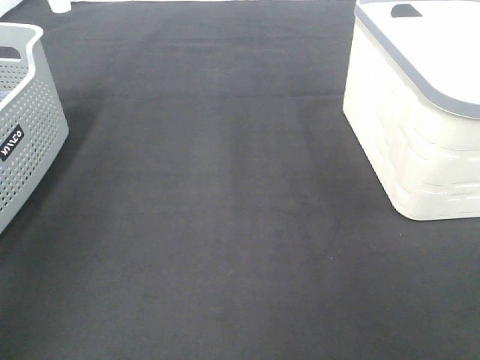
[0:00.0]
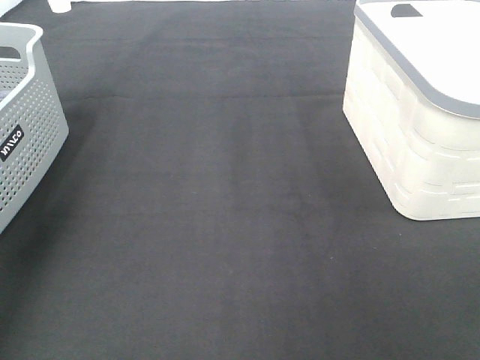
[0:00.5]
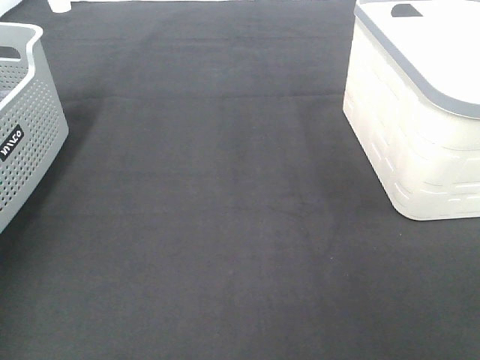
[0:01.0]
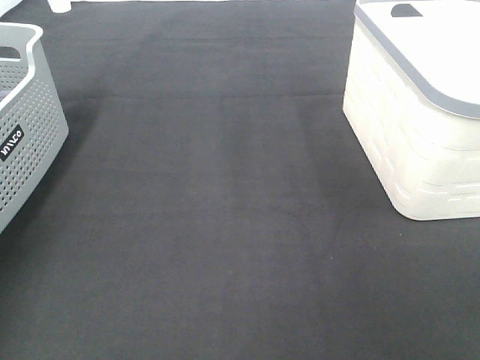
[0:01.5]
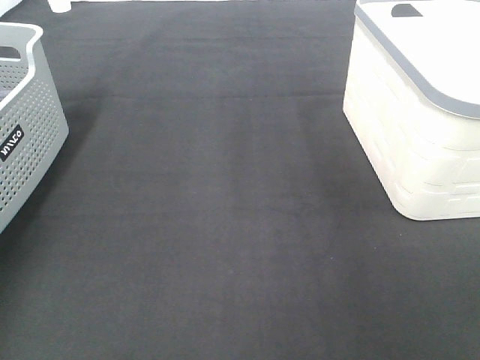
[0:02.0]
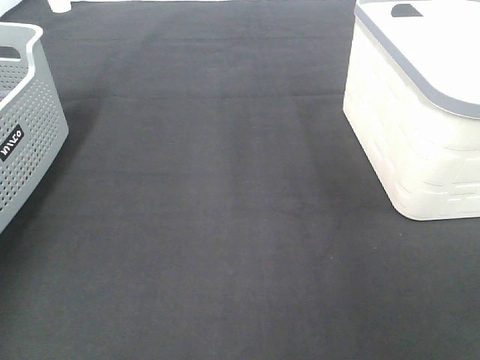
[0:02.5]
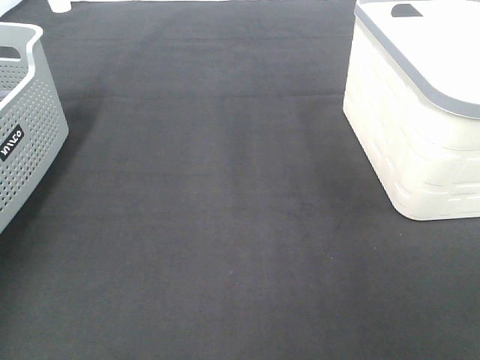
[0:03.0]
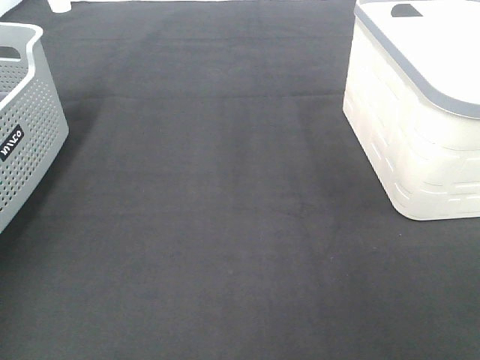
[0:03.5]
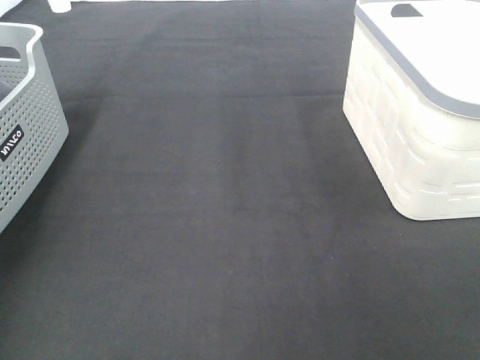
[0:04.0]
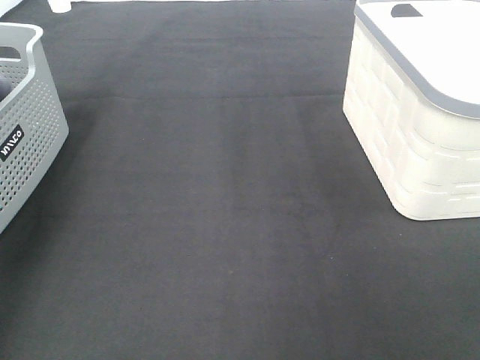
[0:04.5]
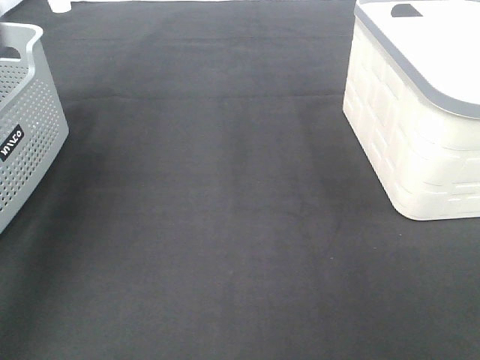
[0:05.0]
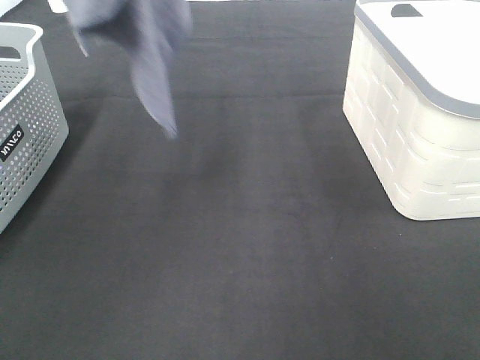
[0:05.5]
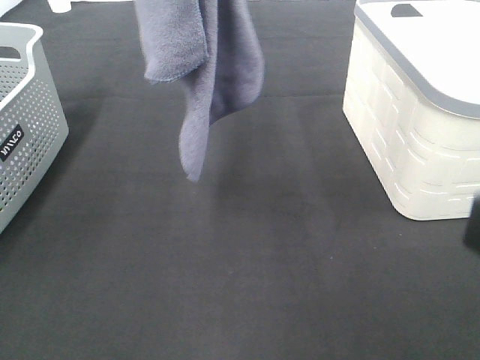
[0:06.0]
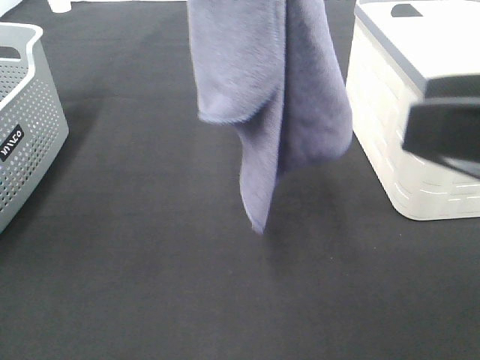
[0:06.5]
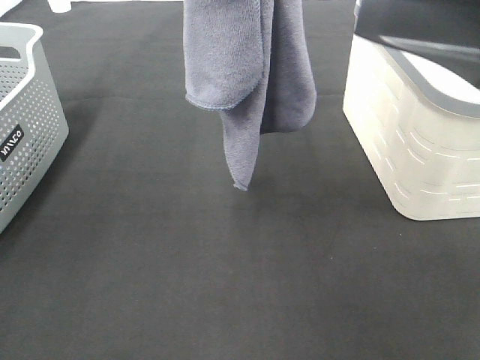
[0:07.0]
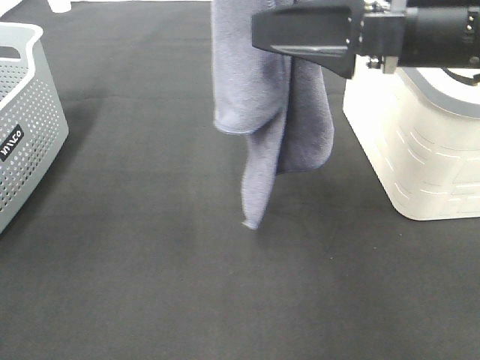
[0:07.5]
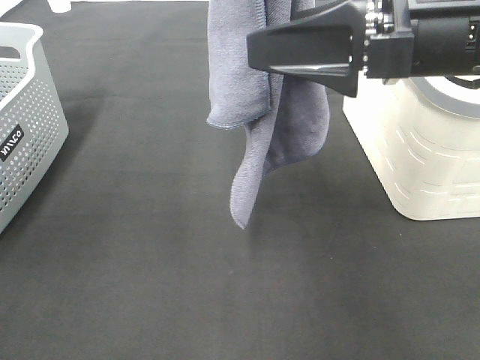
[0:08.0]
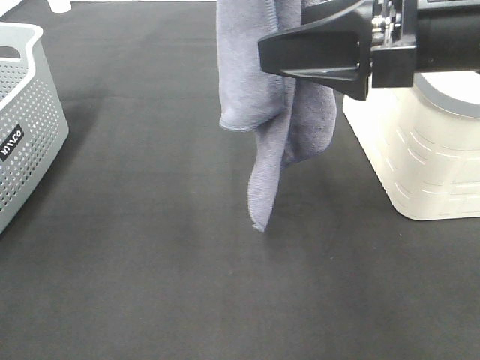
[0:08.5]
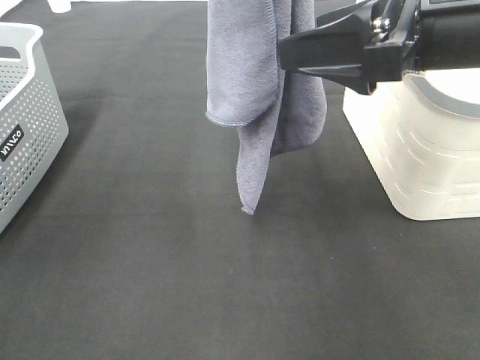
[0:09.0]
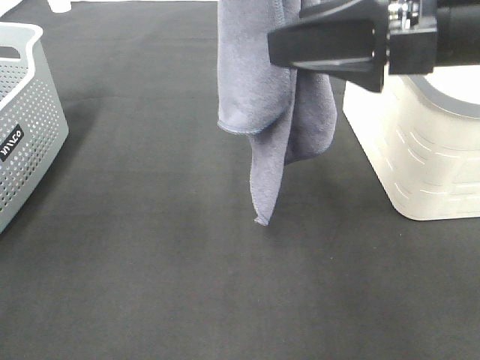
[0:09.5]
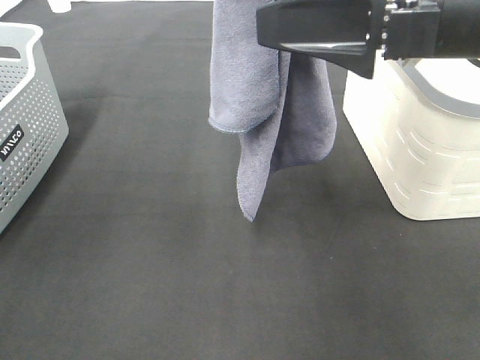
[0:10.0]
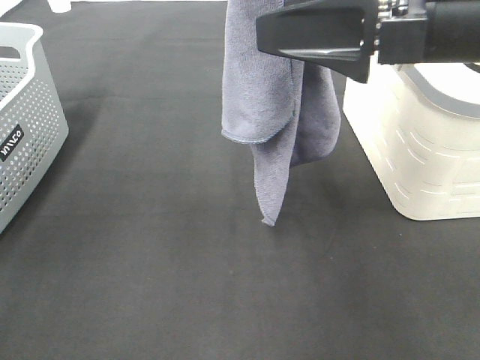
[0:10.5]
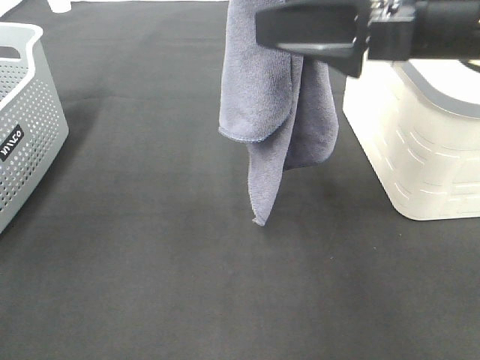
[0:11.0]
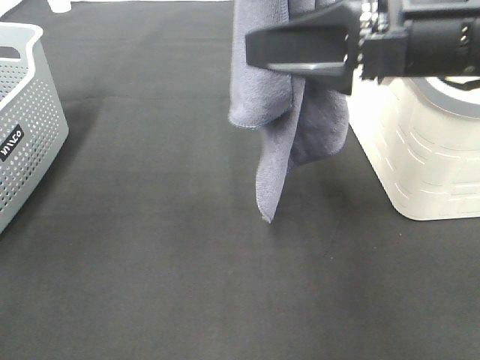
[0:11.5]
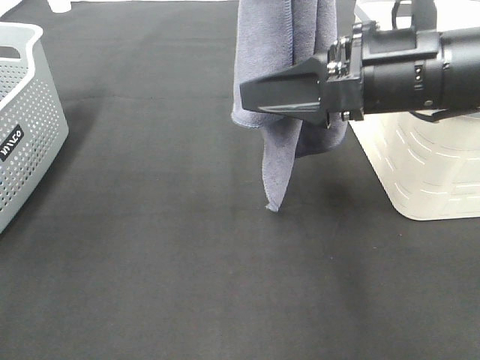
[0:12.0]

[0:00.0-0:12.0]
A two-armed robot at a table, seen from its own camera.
Task of the whole recording: Remove the towel and place it.
Step, 0:04.5 to 0:10.5: Right hand: grab a corner of the grey towel and straighten it.
0:00.0 to 0:02.0: The left gripper heads forward and downward, covering roughly 40 cm.
0:04.0 to 0:06.0: The right gripper goes about 5 cm to the left. The left gripper heads to the right and upward, covering some 30 cm.
0:06.0 to 0:08.0: The left gripper heads to the right, covering about 5 cm. The right gripper travels forward by about 20 cm.
0:08.0 to 0:10.0: The grippers stay close to where they were, moving slightly.
0:10.0 to 0:12.0: The right gripper heads downward, covering roughly 5 cm.

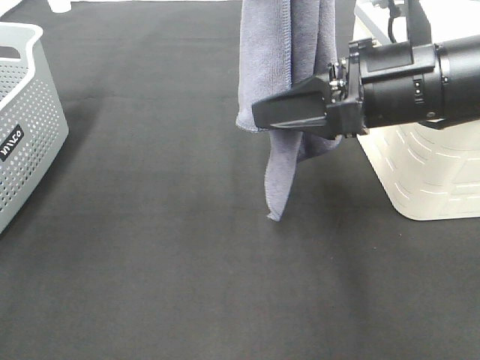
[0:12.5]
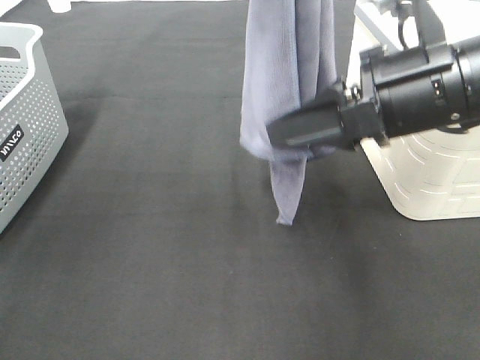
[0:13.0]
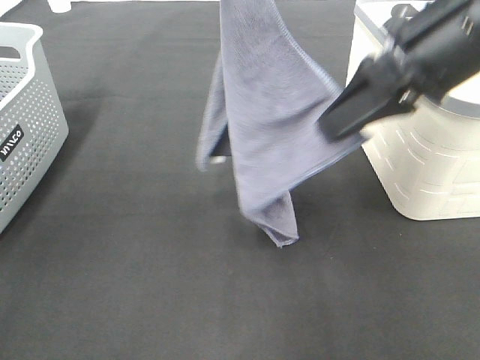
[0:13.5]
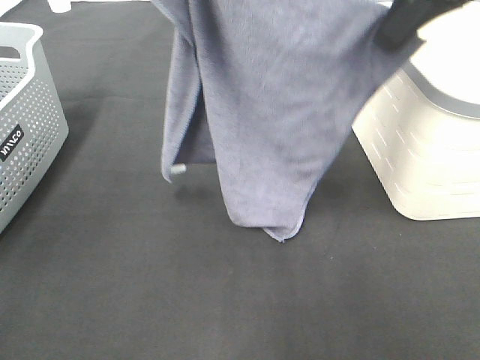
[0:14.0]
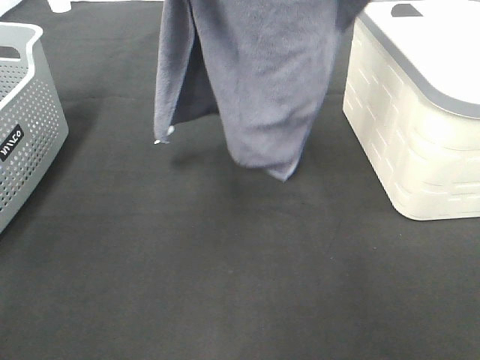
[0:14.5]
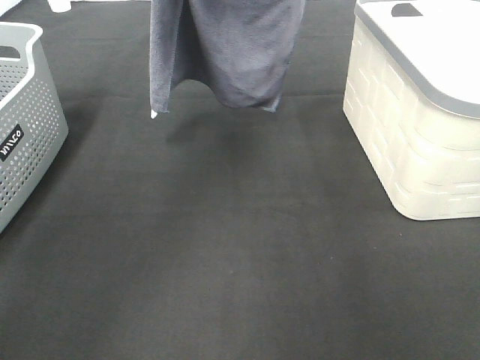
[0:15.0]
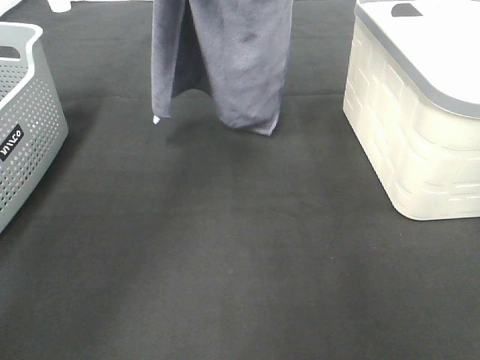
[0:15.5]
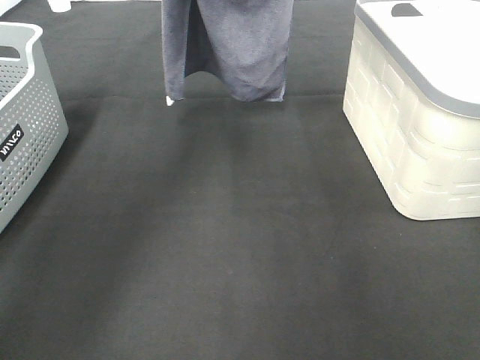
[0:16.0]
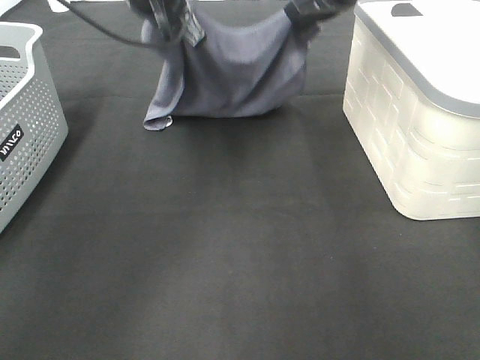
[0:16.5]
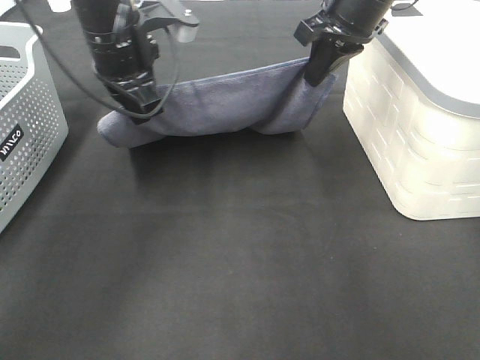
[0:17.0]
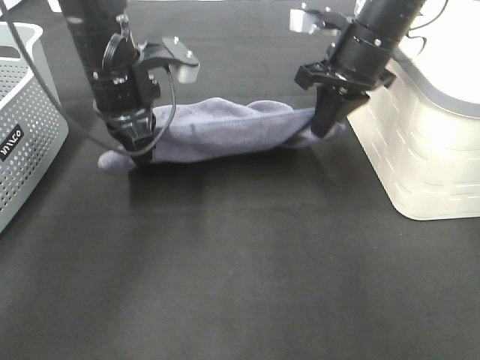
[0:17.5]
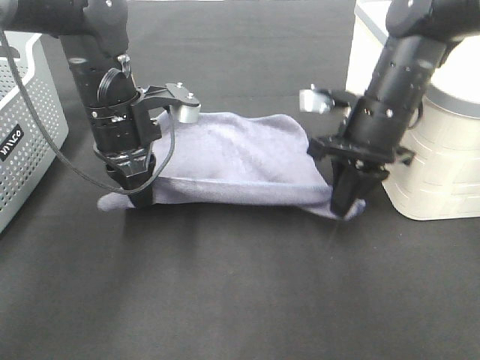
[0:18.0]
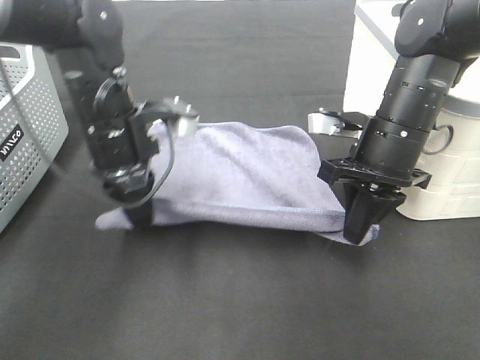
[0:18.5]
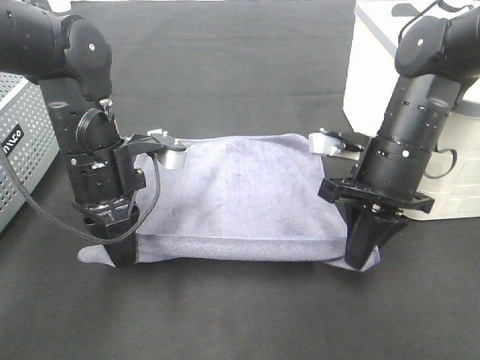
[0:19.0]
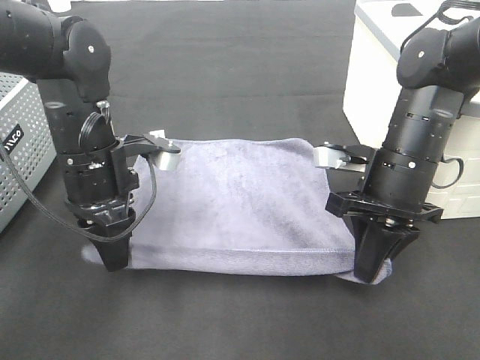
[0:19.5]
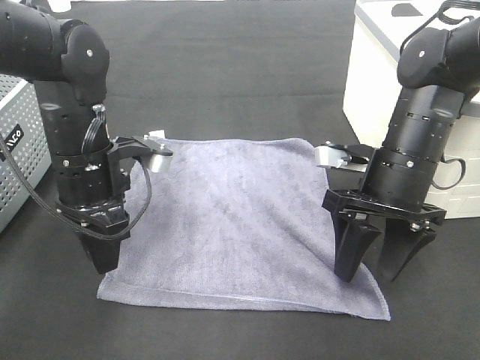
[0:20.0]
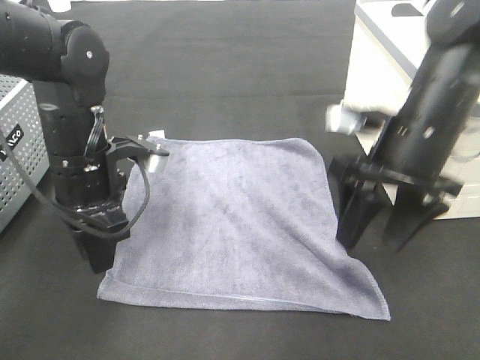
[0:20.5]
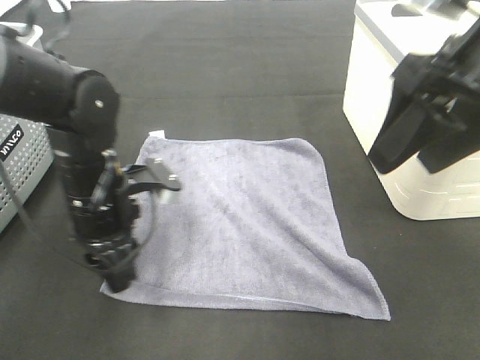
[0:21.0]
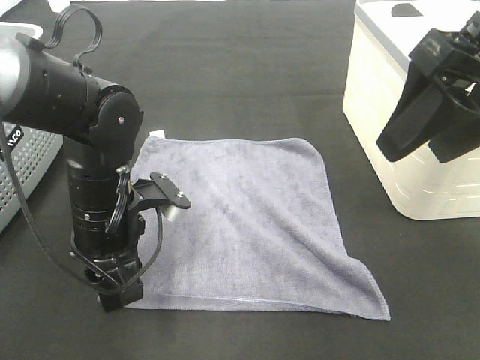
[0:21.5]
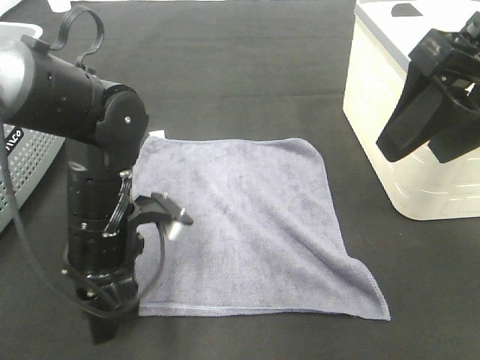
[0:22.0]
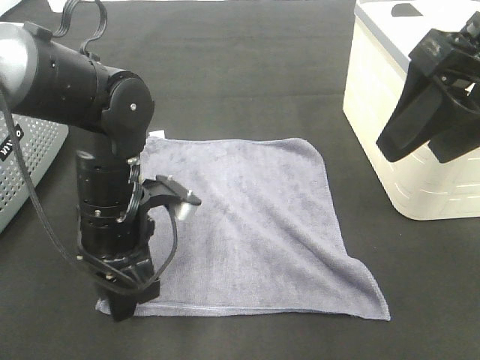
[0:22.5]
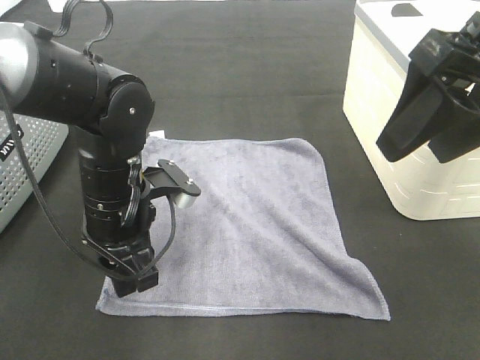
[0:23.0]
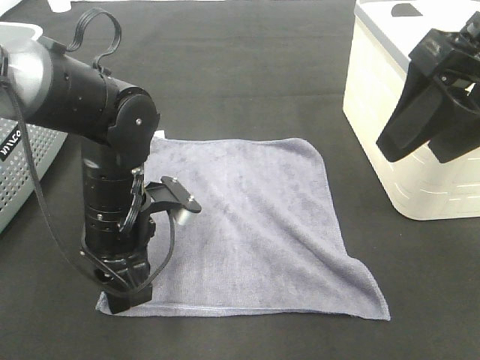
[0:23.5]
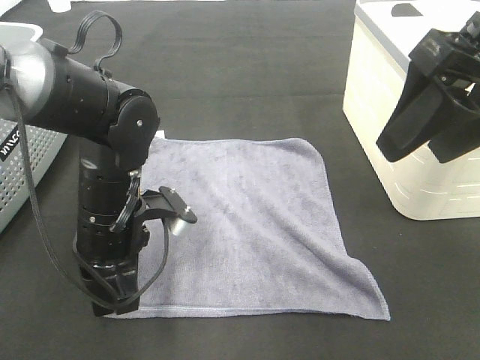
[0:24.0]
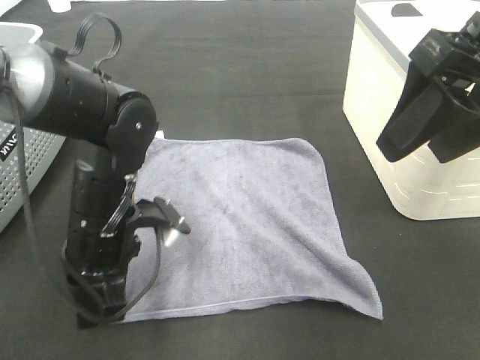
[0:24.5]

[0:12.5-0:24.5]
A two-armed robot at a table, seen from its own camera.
Task of the whole recording: Remove the towel and place it.
Step, 0:12.5 to 0:14.5: Left hand: spread the grey towel flat on the table.
Step, 0:12.5 to 0:14.5: Right hand: spread the grey towel flat on the table.
Step, 0:15.0 to 0:19.0: Left hand:adjust the gray towel.
0:12.5 to 0:14.5: The left gripper goes approximately 5 cm forward; the right gripper moves upward and forward, some 20 cm.
0:14.5 to 0:16.5: The two grippers go approximately 15 cm downward and forward.
0:16.5 to 0:18.5: The right gripper shifts some 20 cm backward and downward, while the left gripper heads downward and backward, covering some 15 cm.
0:18.5 to 0:20.5: The right gripper opens up.
0:20.5 to 0:22.5: The left gripper moves roughly 5 cm, while the right gripper shifts about 15 cm upward and backward.
0:22.5 to 0:24.5: The left gripper closes up.

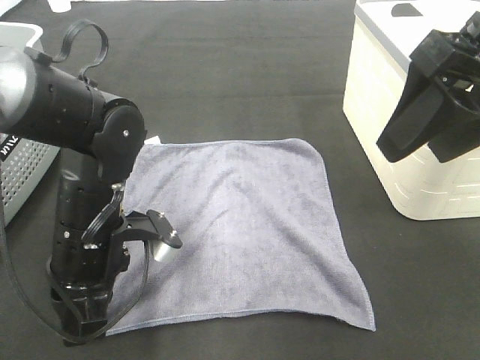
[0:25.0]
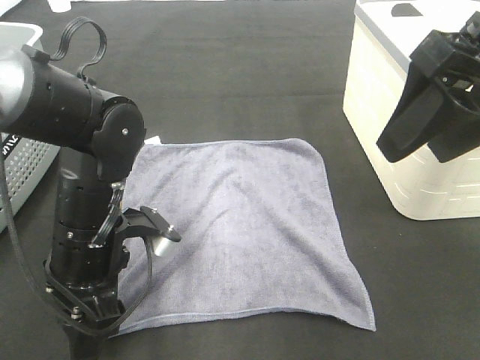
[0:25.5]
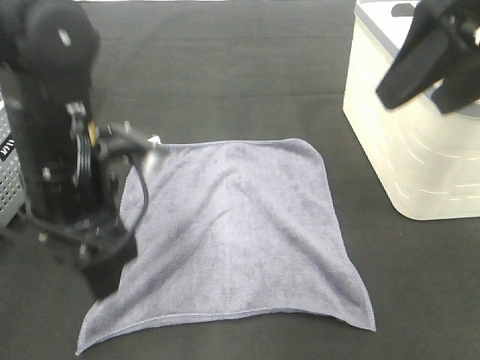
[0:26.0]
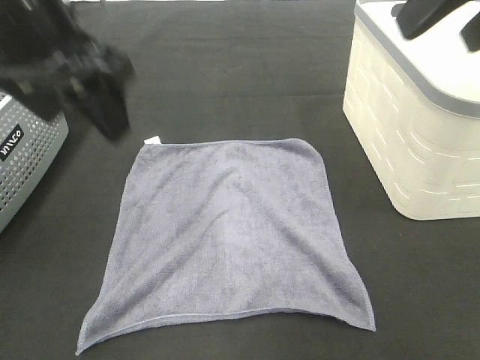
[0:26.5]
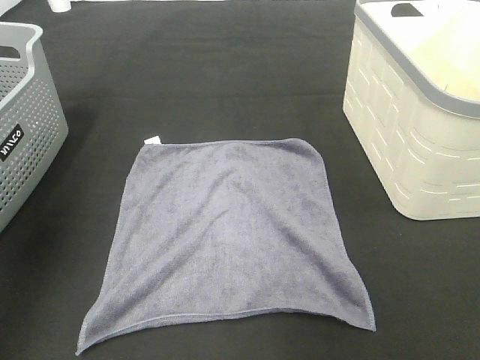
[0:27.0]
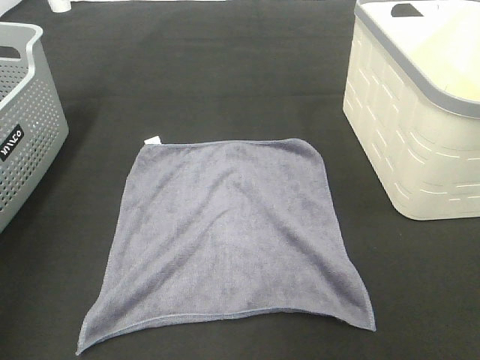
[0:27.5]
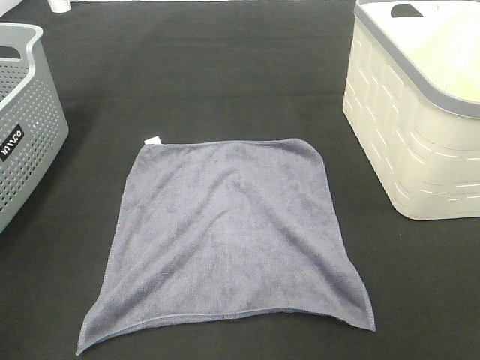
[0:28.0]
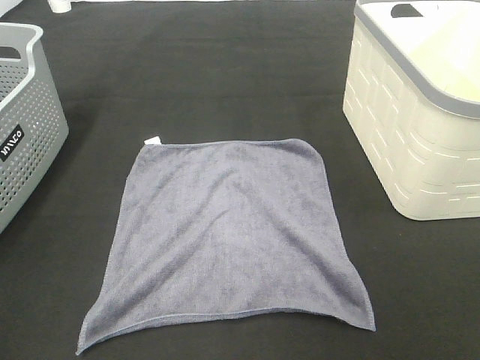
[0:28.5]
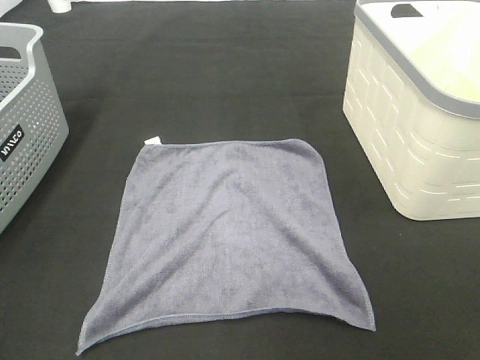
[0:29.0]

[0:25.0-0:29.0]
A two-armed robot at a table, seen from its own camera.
Task of the whole recording: Remove the towel and place it.
0:25.0 to 0:27.0: The left gripper travels upward and to the left by about 35 cm, and opens its fingers; the right gripper is displaced upward and to the right by some 15 cm.
0:27.0 to 0:29.0: The left gripper goes roughly 30 cm backward.
